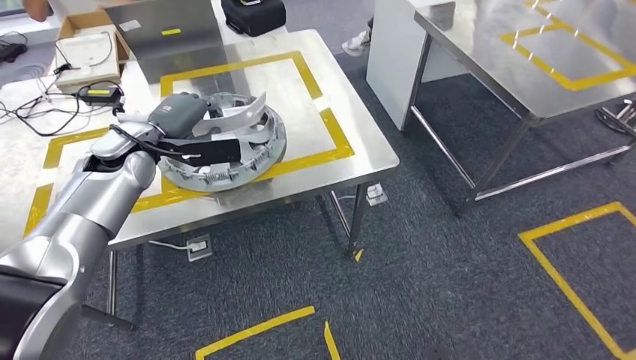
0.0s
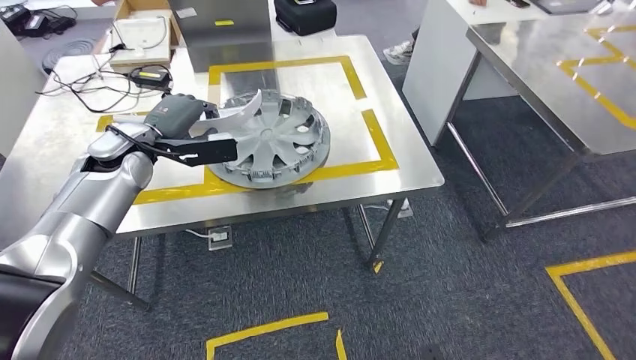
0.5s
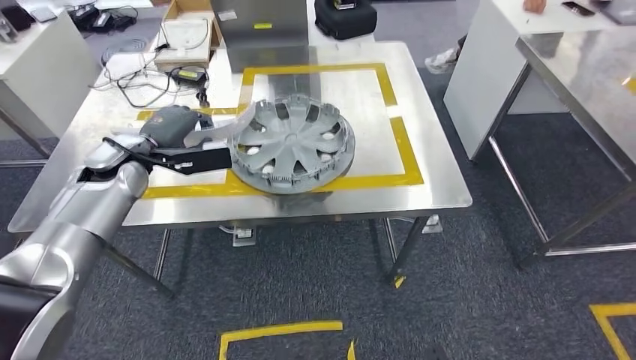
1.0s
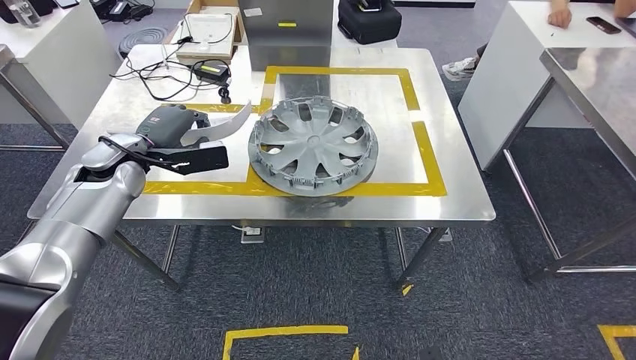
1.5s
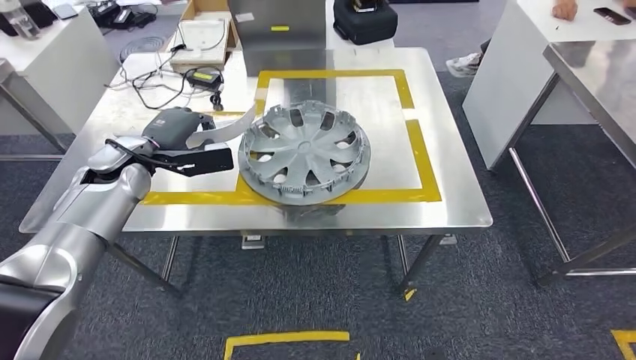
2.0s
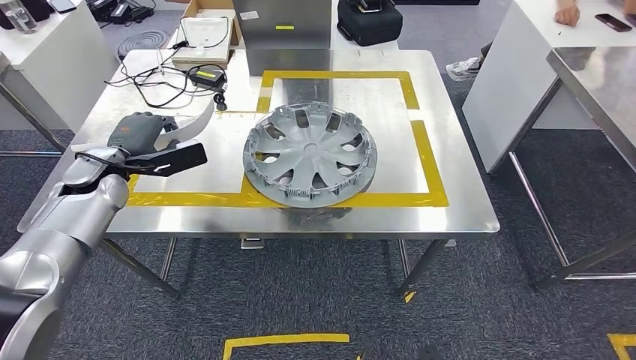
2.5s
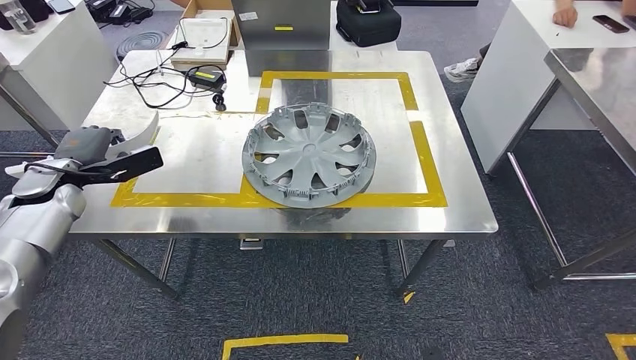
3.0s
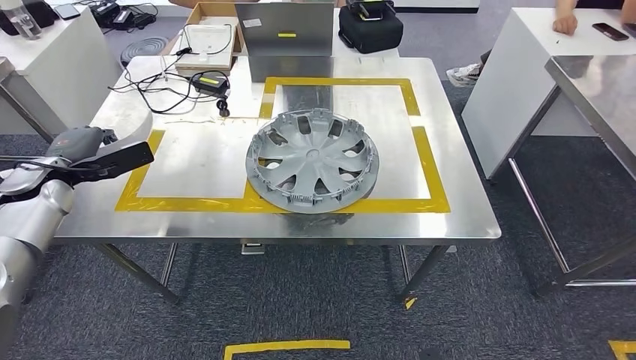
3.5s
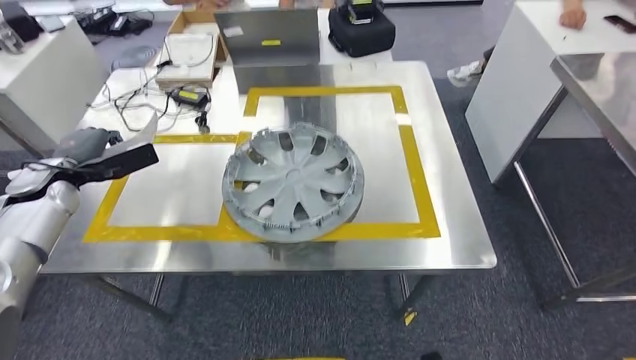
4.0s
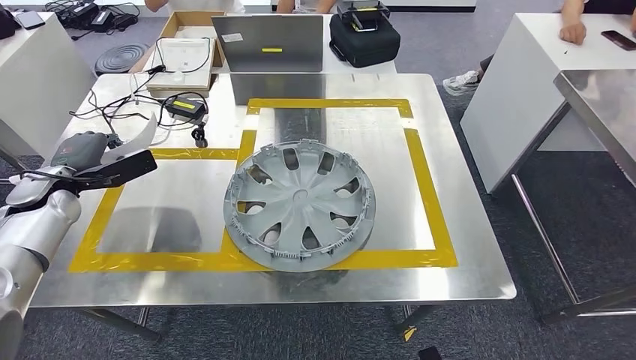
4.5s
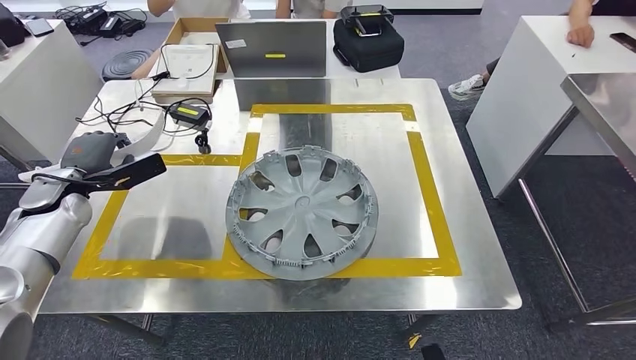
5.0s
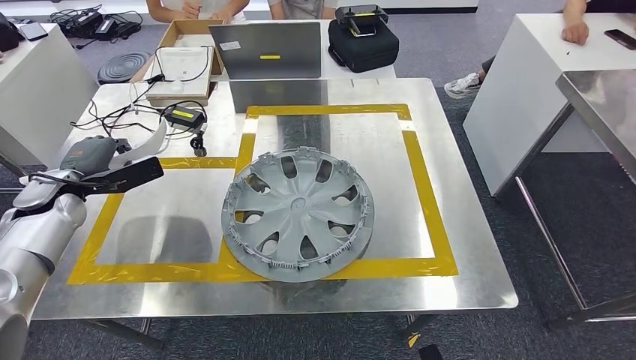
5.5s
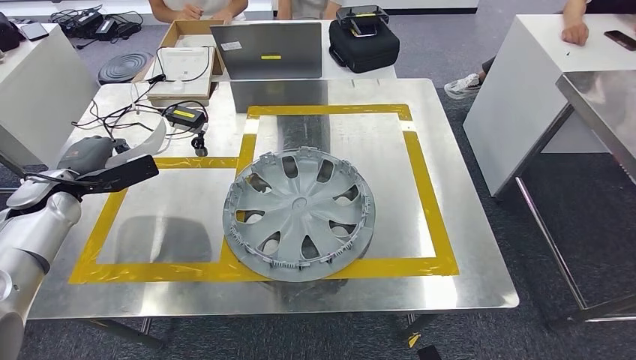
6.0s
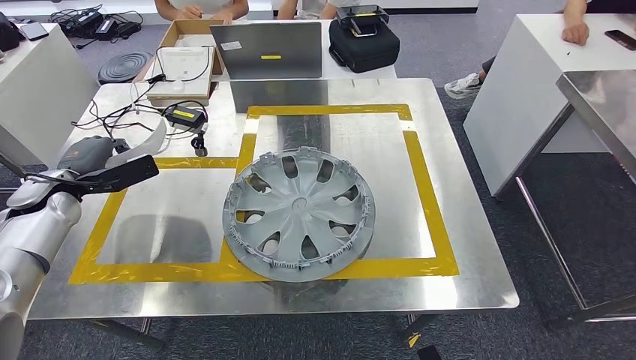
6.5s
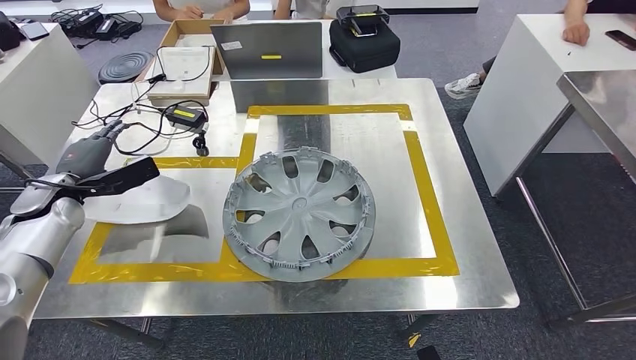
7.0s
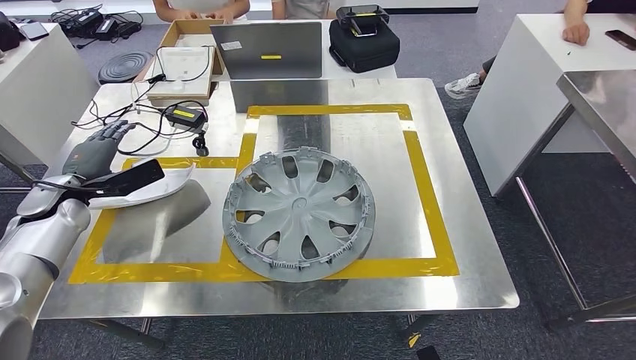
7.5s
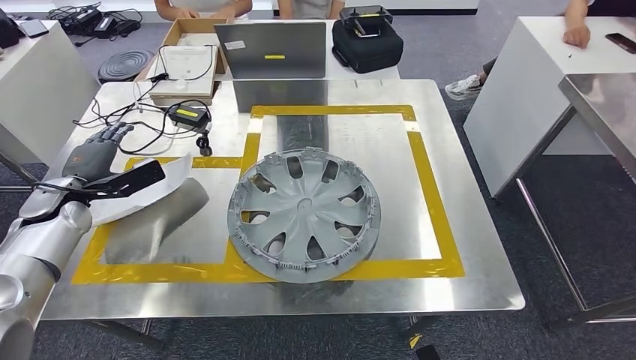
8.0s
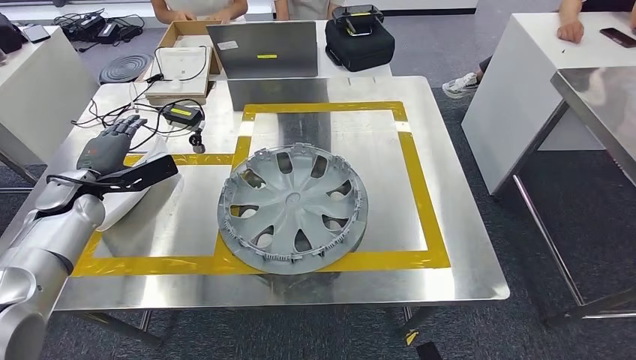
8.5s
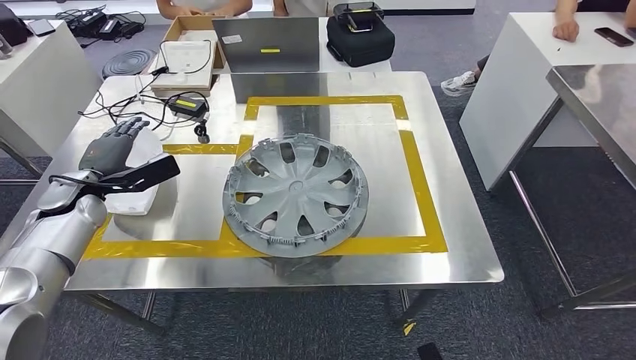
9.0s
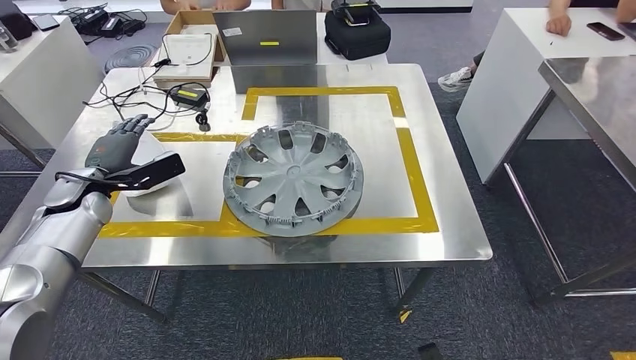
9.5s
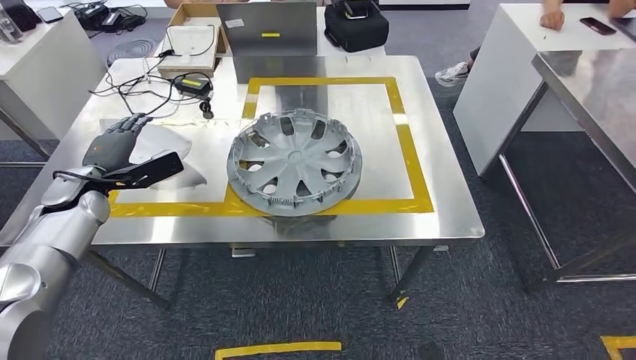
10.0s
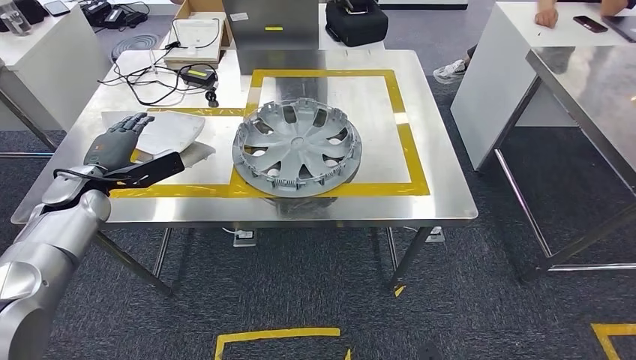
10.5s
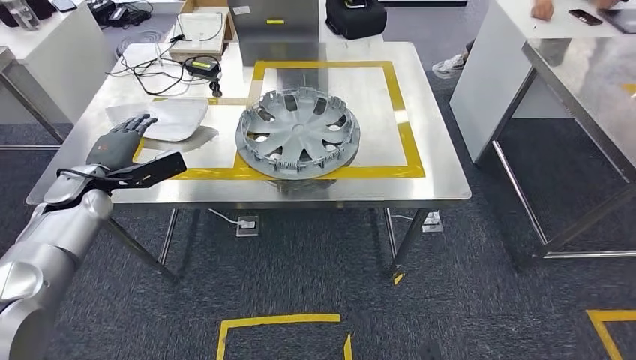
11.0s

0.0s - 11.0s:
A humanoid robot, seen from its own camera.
Step, 1.0s - 9.0s: Insert the small component into the corresponding slot on the workbench.
5.5s - 7.5s: The two hands keep their place.

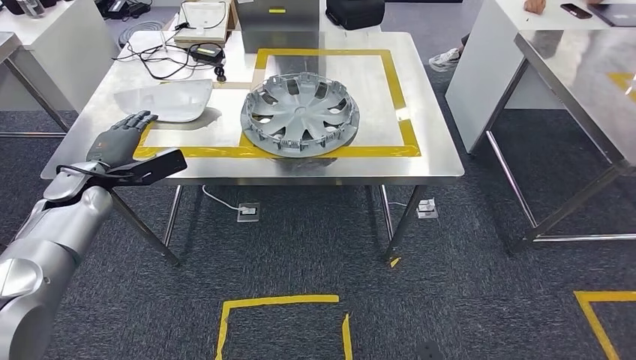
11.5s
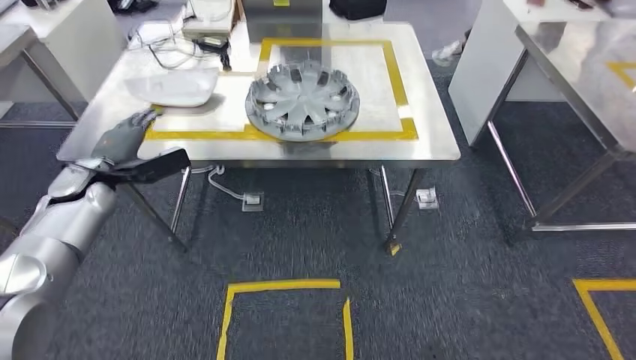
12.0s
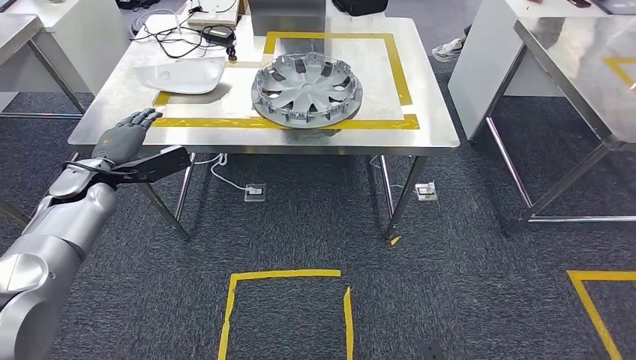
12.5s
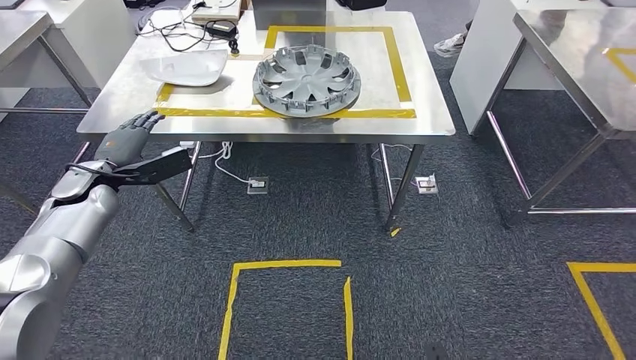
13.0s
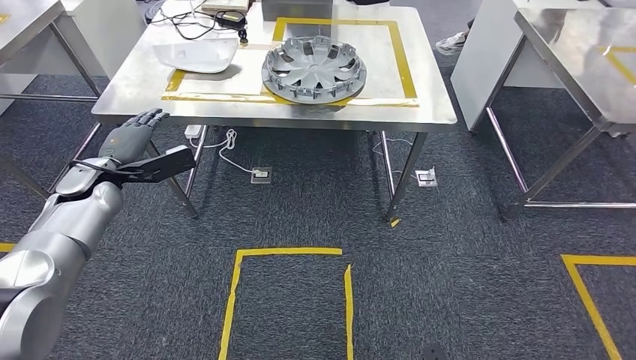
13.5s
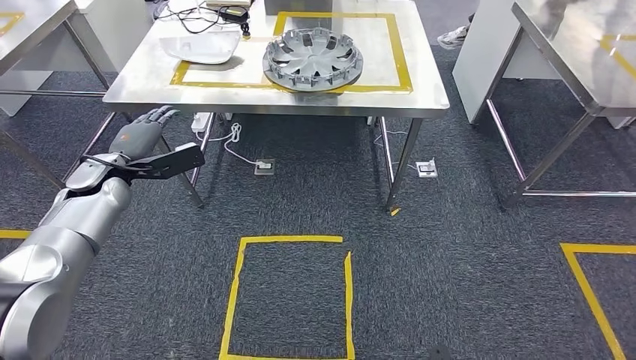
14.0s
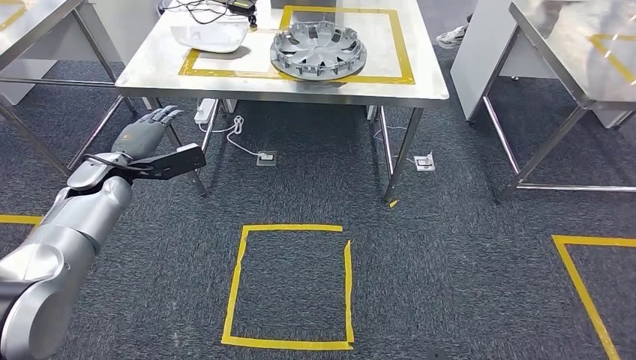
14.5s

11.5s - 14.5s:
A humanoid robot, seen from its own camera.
Step, 11.5s - 14.5s: Return to the initial position at the workbench.
